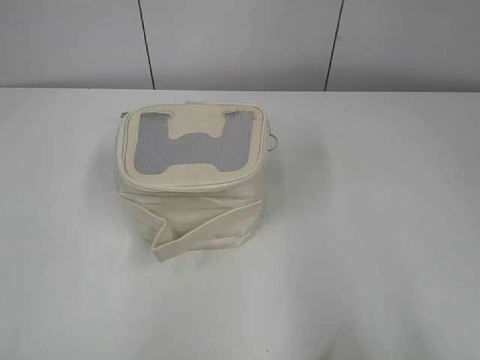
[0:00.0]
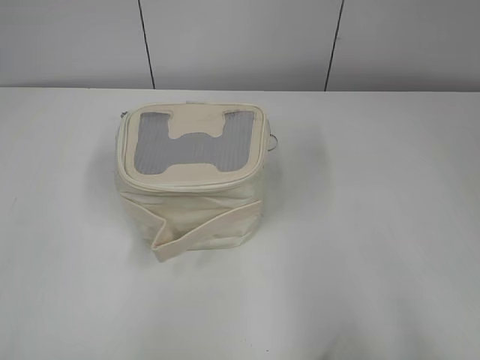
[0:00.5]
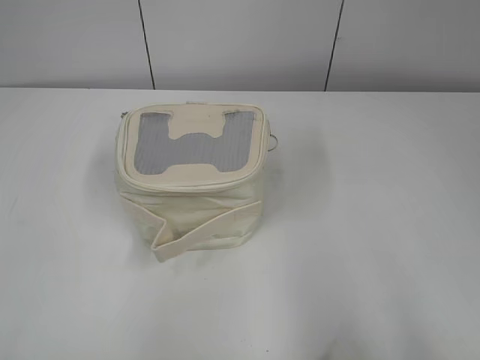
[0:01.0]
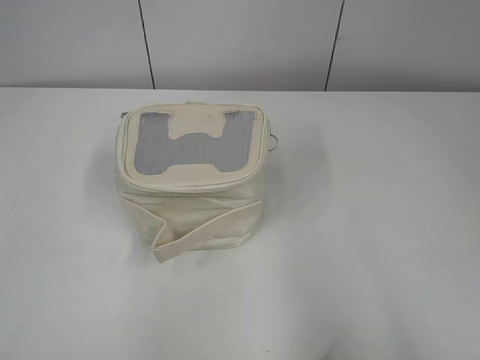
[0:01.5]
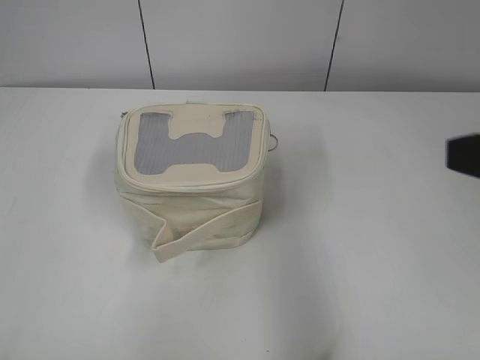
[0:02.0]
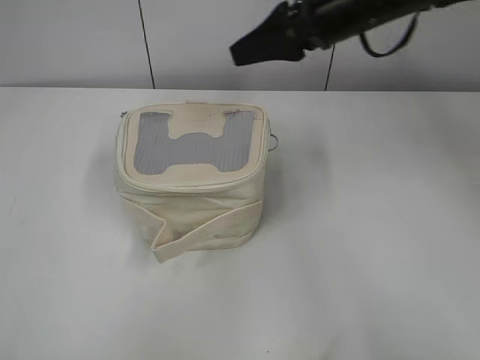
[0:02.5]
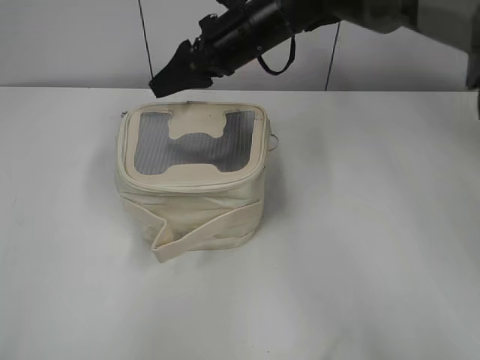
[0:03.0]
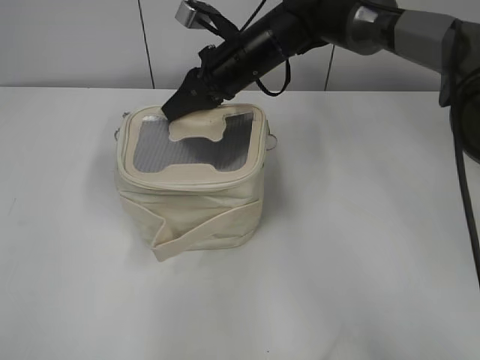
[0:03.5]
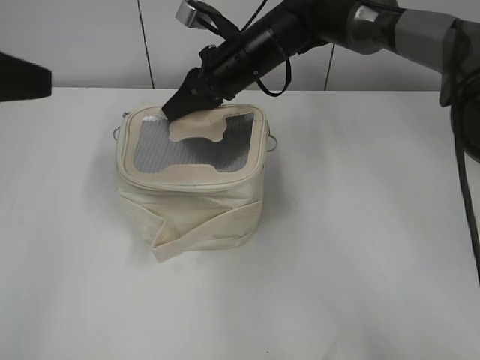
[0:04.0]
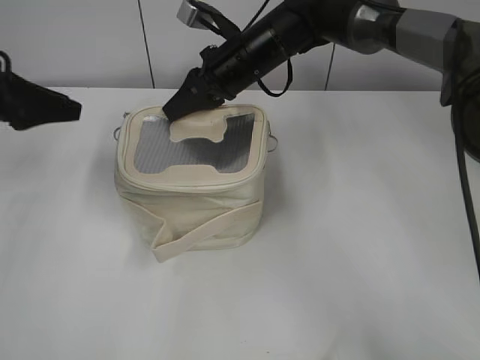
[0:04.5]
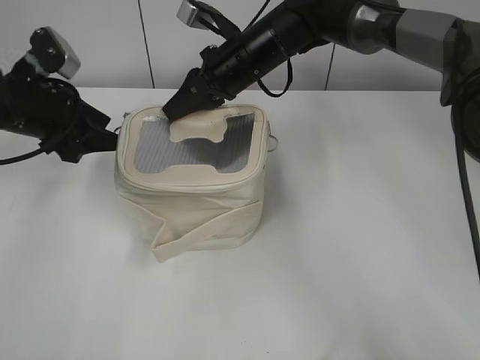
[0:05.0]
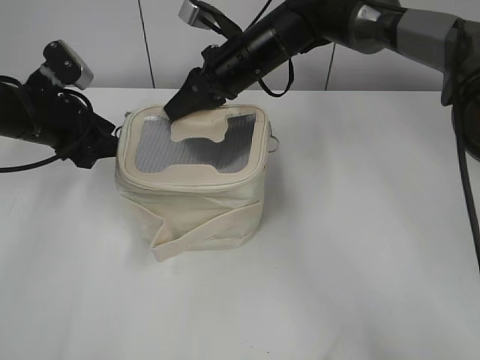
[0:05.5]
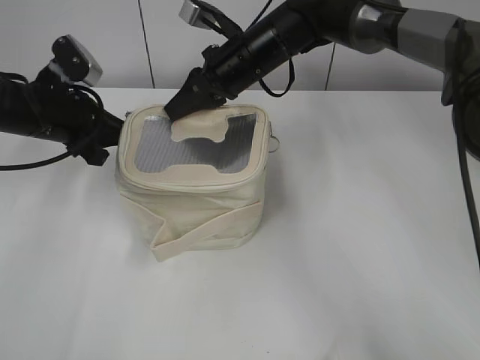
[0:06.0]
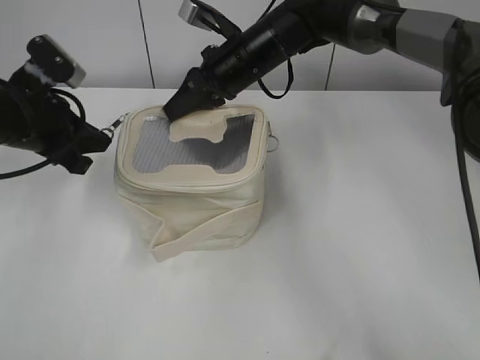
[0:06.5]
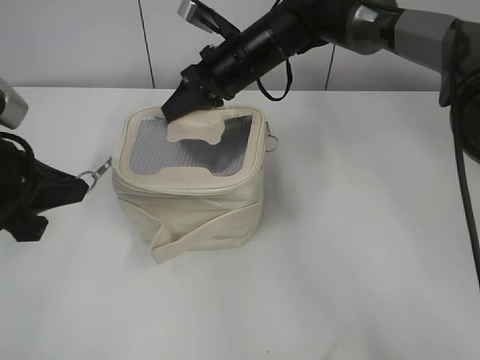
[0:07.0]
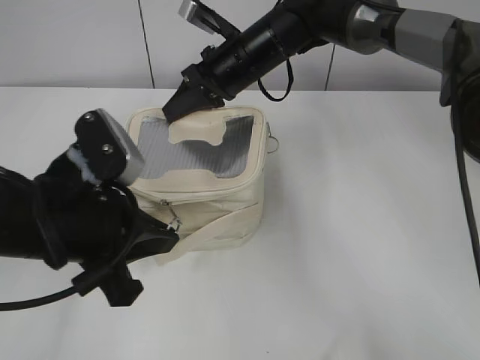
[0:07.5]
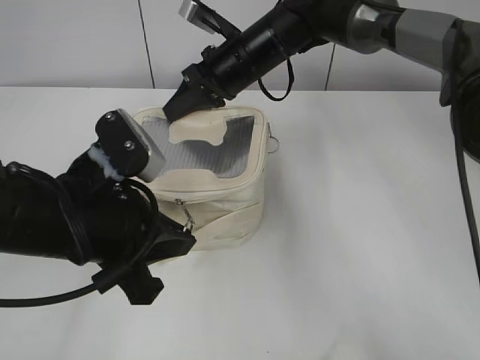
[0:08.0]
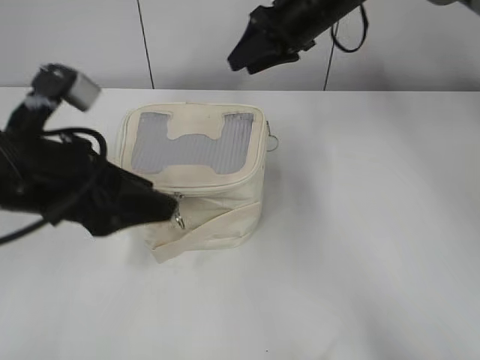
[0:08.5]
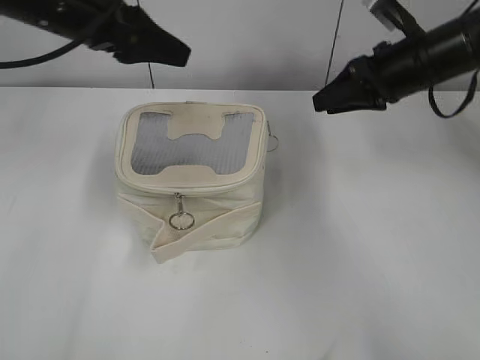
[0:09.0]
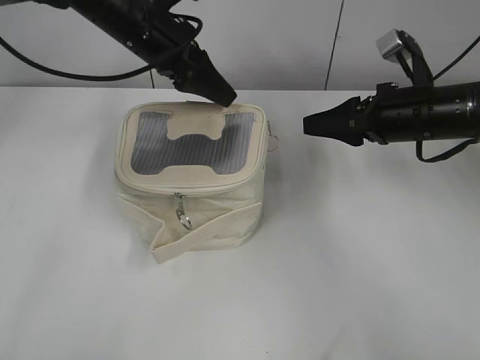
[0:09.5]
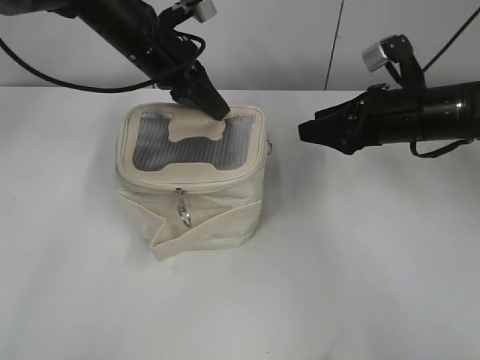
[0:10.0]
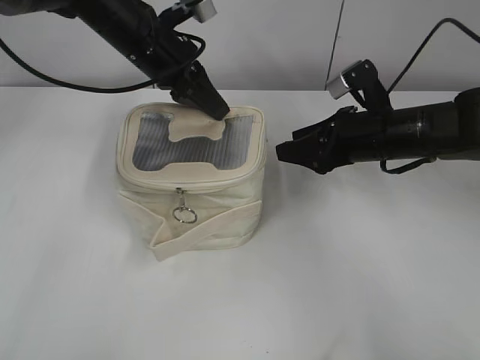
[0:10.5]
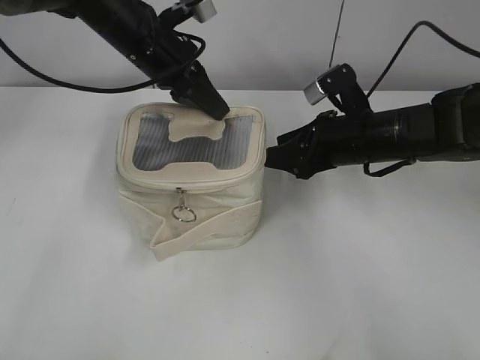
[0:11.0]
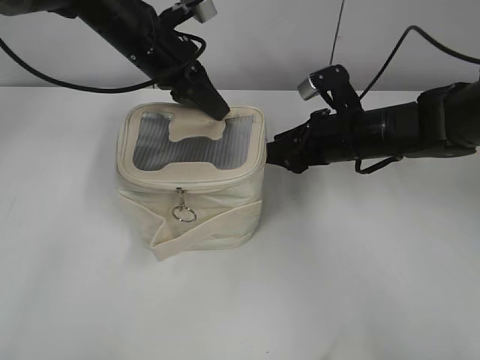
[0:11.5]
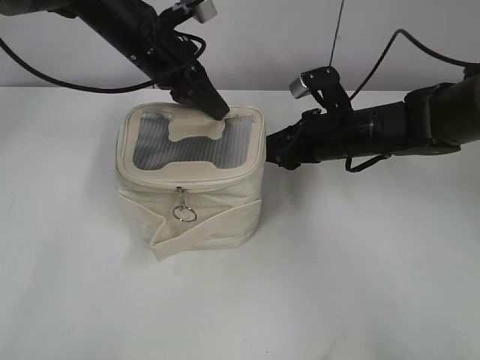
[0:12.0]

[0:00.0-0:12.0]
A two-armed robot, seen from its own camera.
Step, 0.0 to 8.0 s: Zip up the bag with your left hand.
2.0 to 4.0 s: The right gripper goes about 40 cm forward, to the left and downward, and closes up; the left gripper goes approximately 20 cm forward.
4.0 to 6.0 s: The left gripper shifts approximately 25 cm forward and downward, and opens and closes again.
6.0 to 8.0 s: The left gripper is displaced backward and to the right by roughly 20 cm.
8.0 to 10.0 s: The left gripper shifts roughly 25 cm forward, and opens, then closes again; the right gripper heads to the right and backward, covering roughly 20 cm, and opens up.
10.0 to 12.0 s: The right gripper shifts approximately 5 cm to the left.

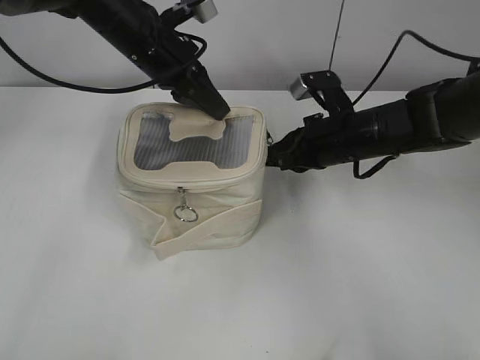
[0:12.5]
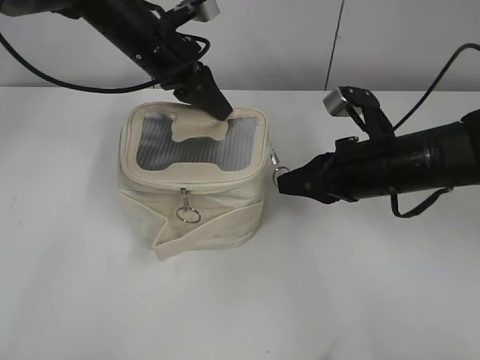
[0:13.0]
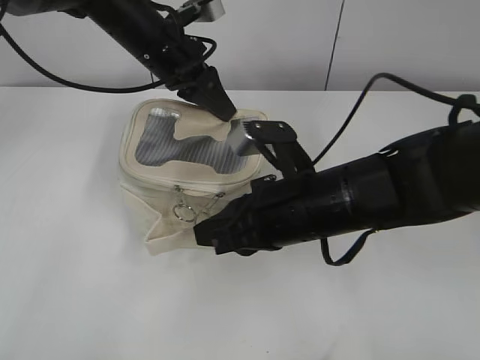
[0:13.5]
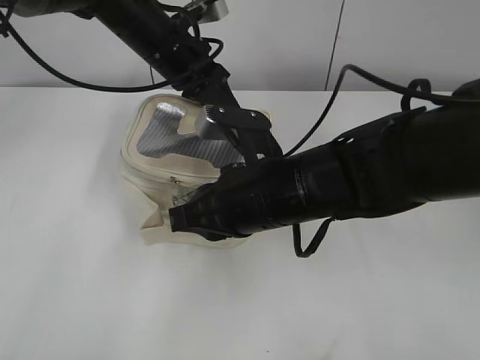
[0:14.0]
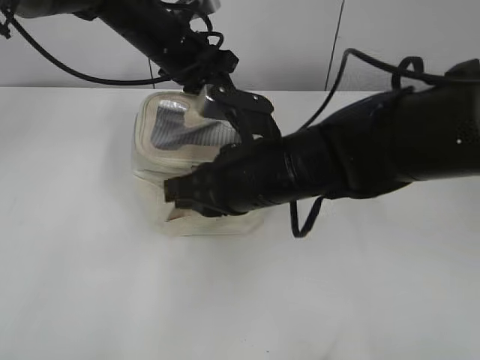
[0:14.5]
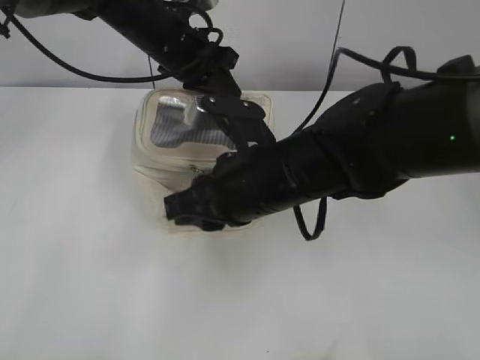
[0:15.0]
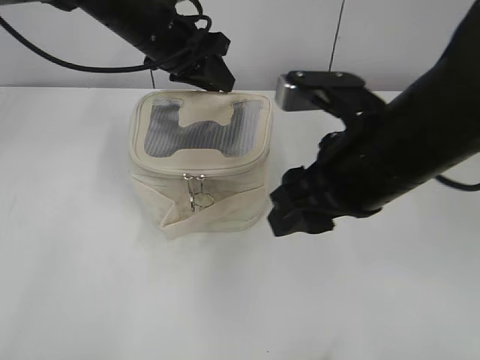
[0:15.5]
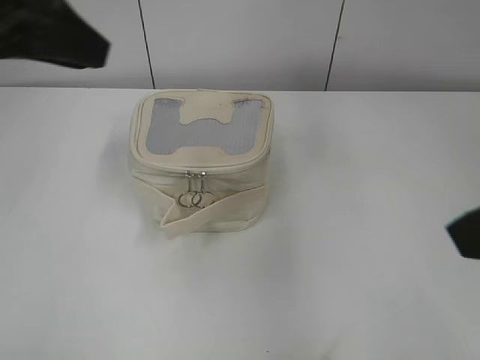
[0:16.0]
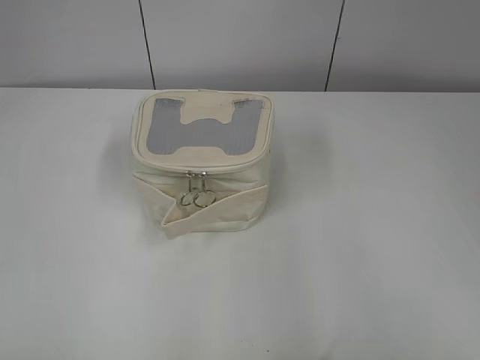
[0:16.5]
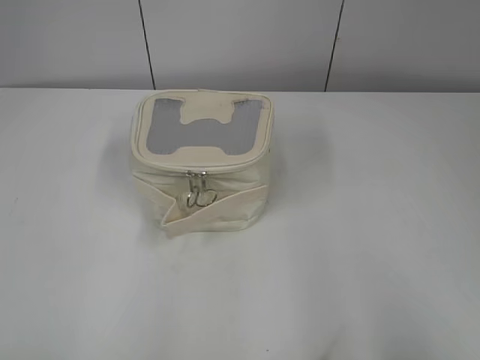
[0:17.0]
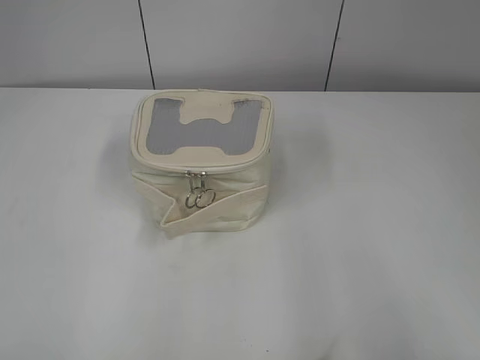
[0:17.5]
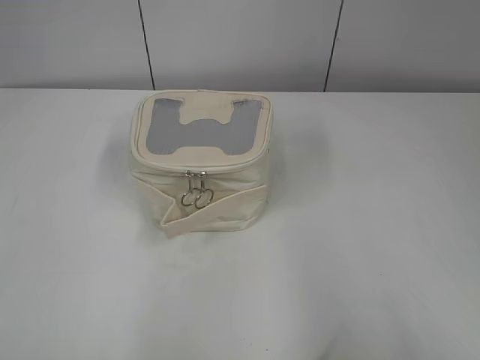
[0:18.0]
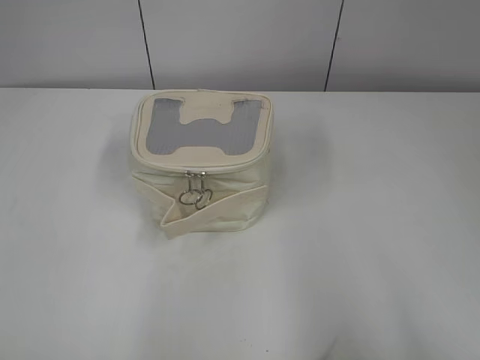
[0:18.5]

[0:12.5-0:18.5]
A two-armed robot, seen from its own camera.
Step, 12.5 to 15.0 s: Zip up the bag with your right hand.
12.5 to 14.5 s: The right gripper moves backward and to the left, roughly 15 cm.
14.5 to 16.5 s: The right gripper is displaced to the right, backward and upward by some 40 cm, and opens. Meanwhile the left gripper shifts approximately 50 cm backward and to the left, and opens its fingers.

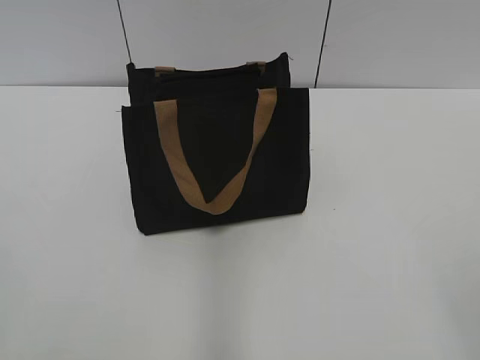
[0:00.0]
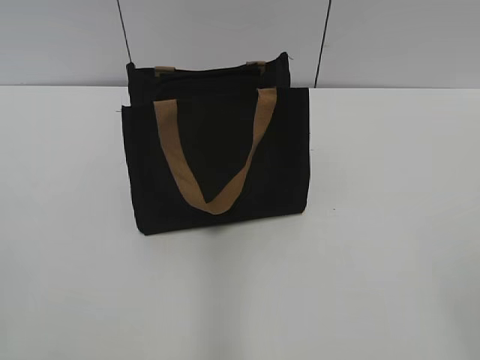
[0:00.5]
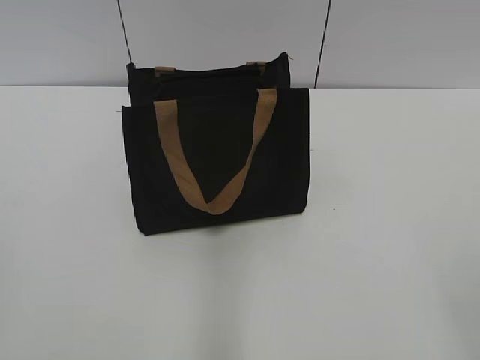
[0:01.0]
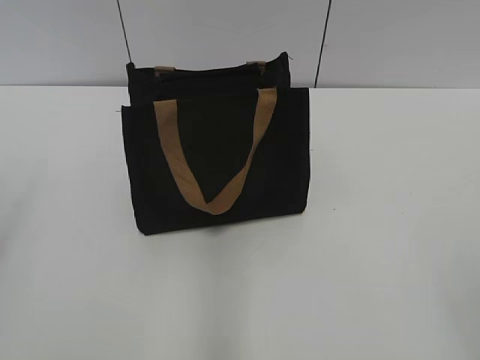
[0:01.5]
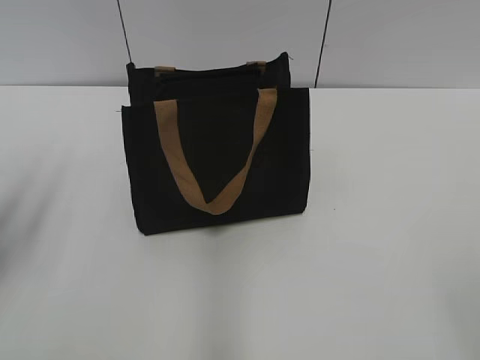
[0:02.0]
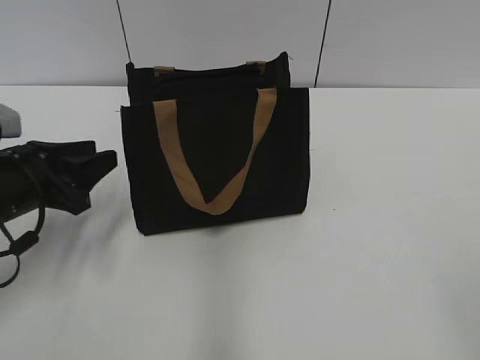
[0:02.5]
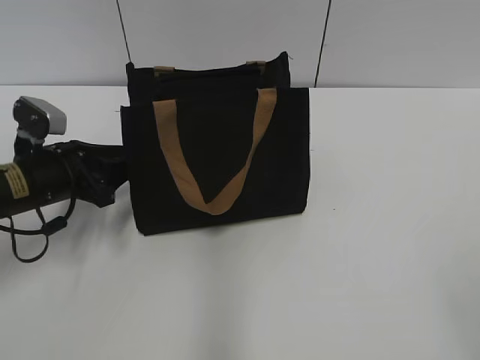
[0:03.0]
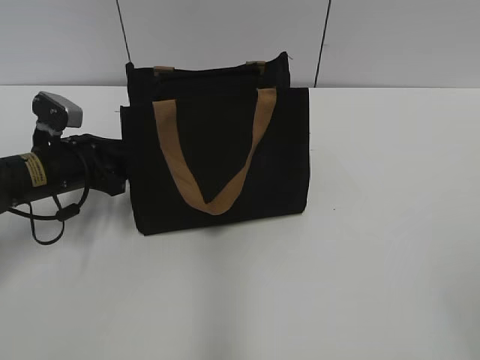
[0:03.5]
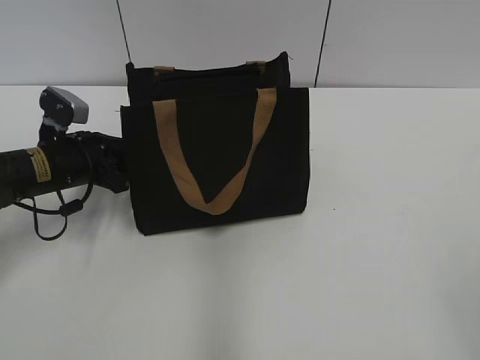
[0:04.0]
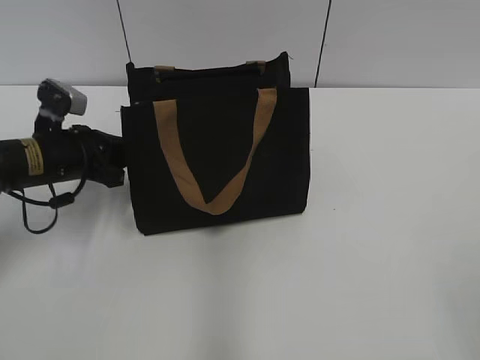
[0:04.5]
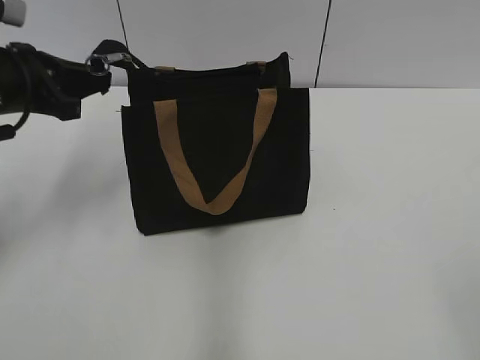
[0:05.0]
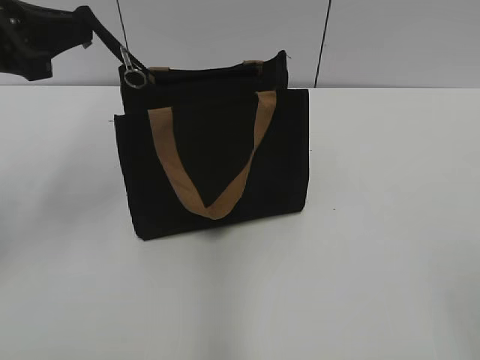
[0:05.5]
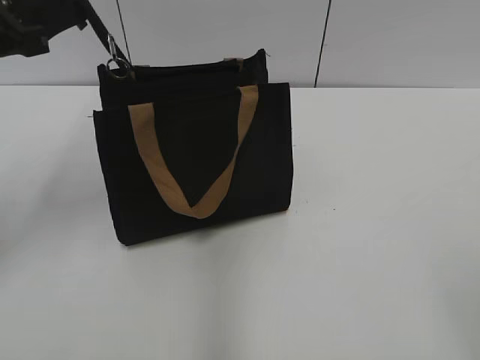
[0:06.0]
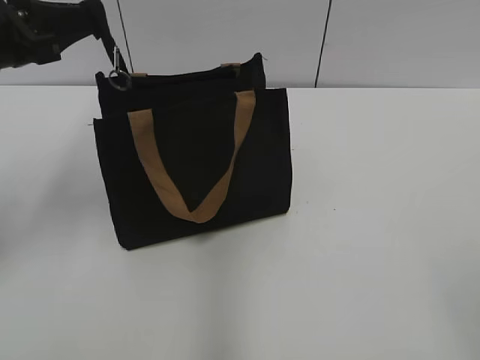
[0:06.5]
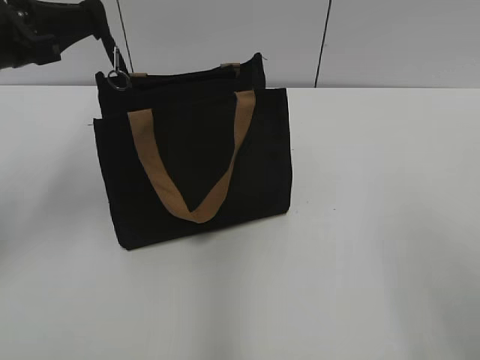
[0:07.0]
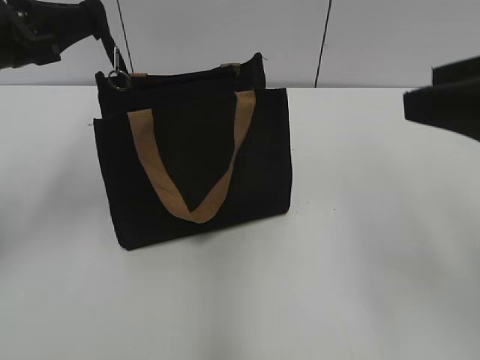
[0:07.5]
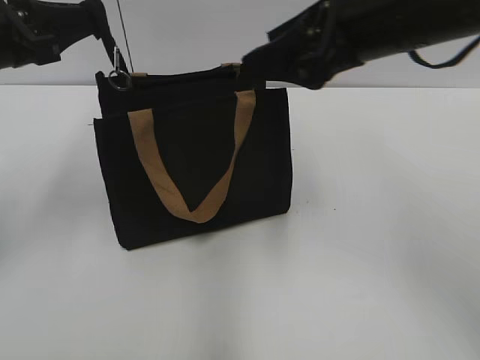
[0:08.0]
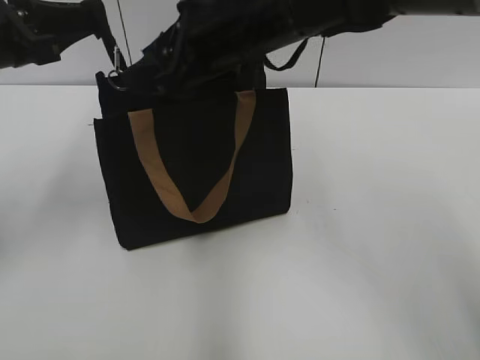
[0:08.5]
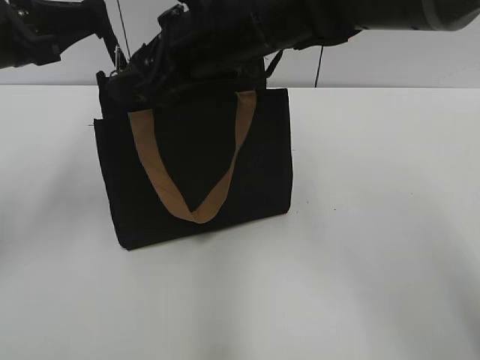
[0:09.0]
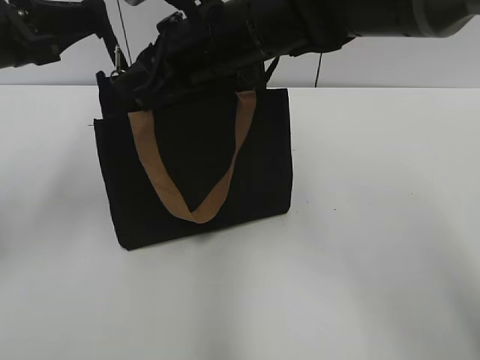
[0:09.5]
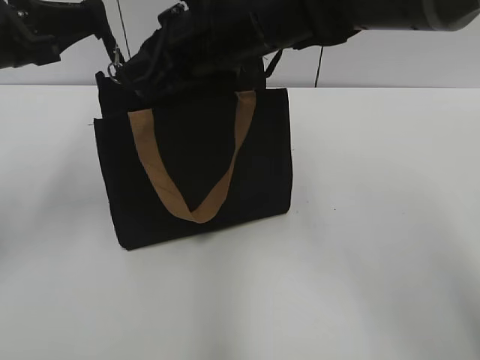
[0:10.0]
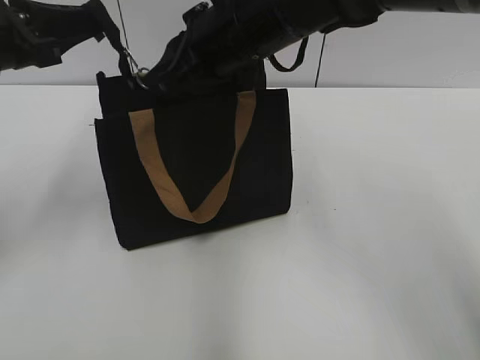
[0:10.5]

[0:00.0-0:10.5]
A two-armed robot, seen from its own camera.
2.0 to 4.0 s: The left gripper travels forward, downward and to the right by about 25 cm.
4.0 to 6.5 s: The left gripper goes about 20 cm upward, and closes up.
6.5 to 8.5 s: The right gripper heads forward and to the left, covering some 40 cm.
8.5 to 10.5 s: The right gripper closes up.
